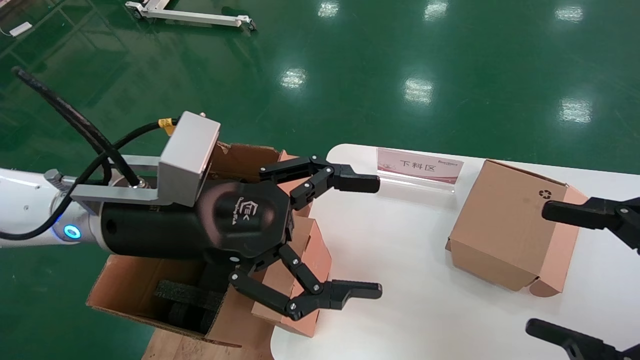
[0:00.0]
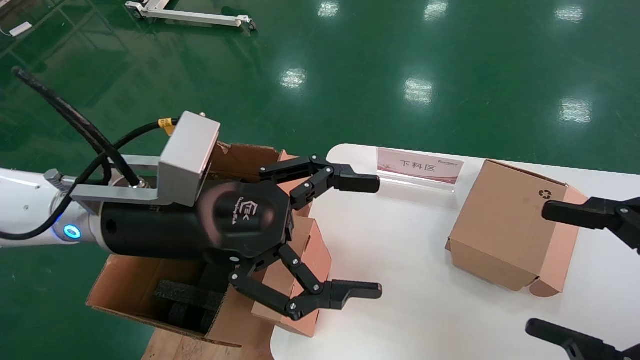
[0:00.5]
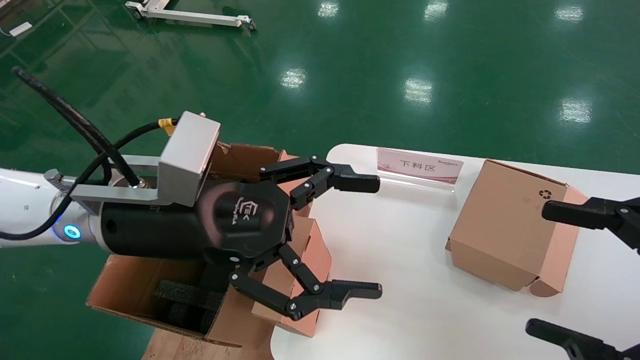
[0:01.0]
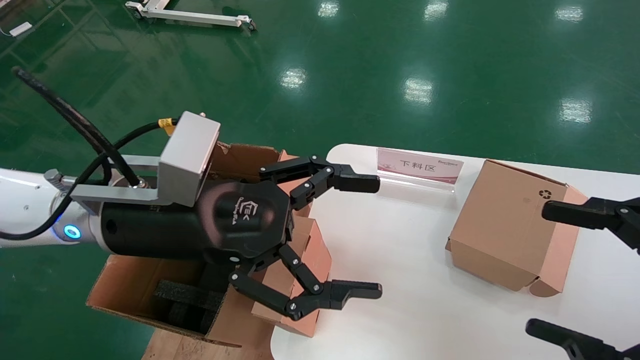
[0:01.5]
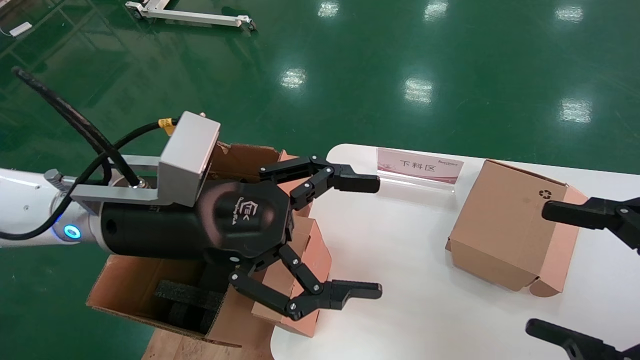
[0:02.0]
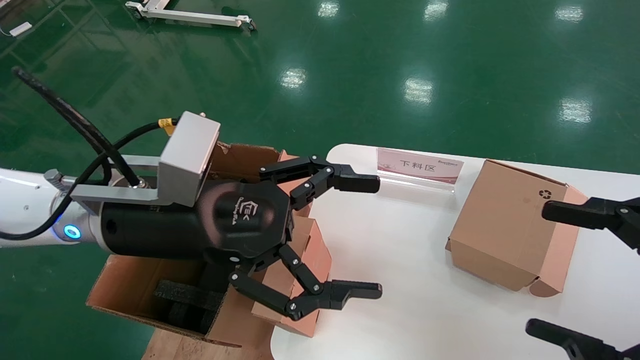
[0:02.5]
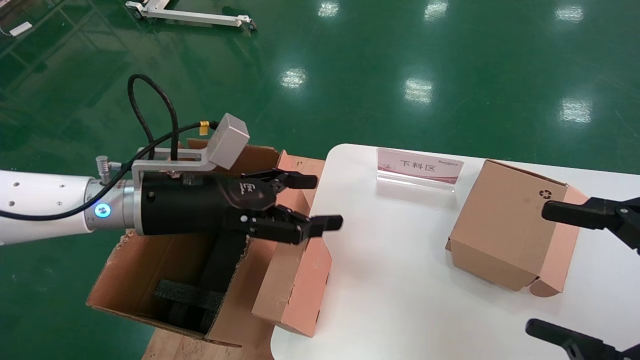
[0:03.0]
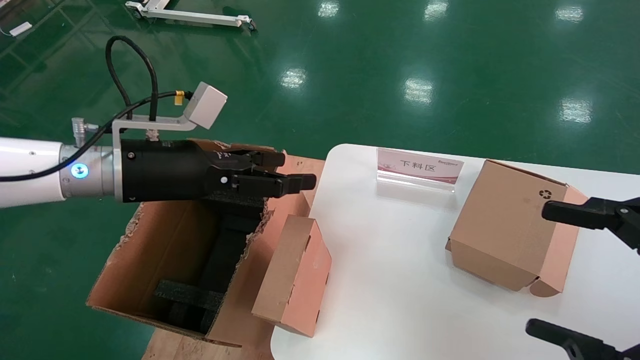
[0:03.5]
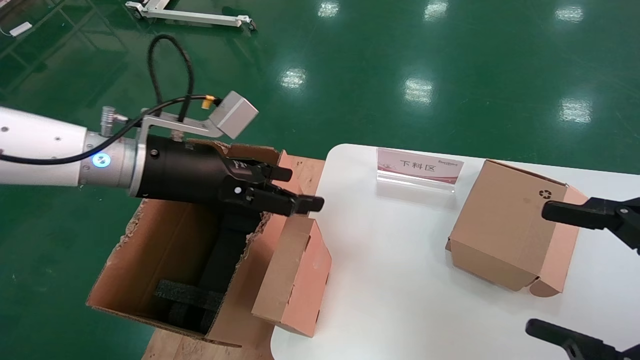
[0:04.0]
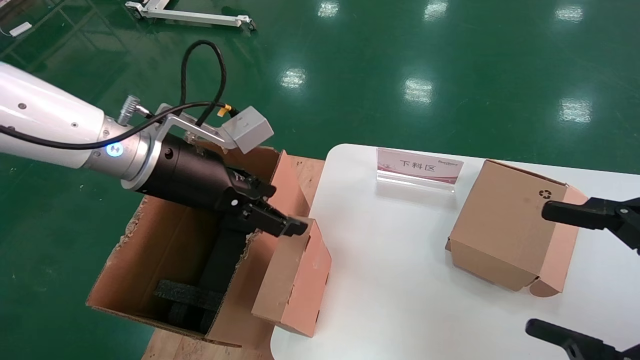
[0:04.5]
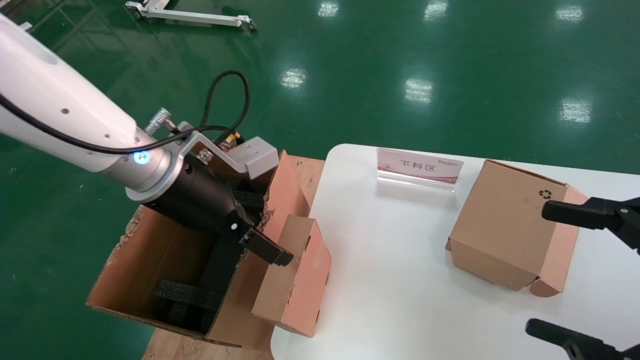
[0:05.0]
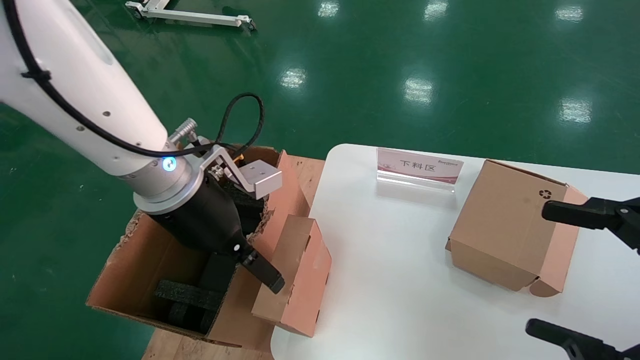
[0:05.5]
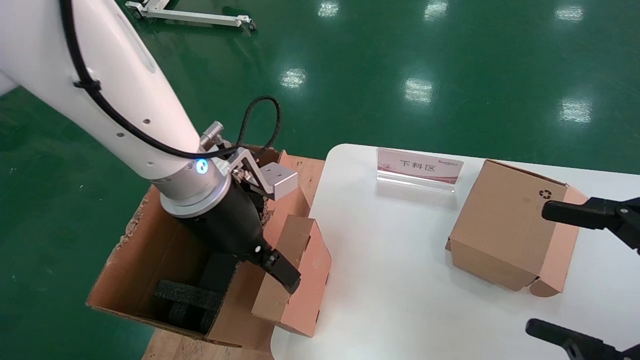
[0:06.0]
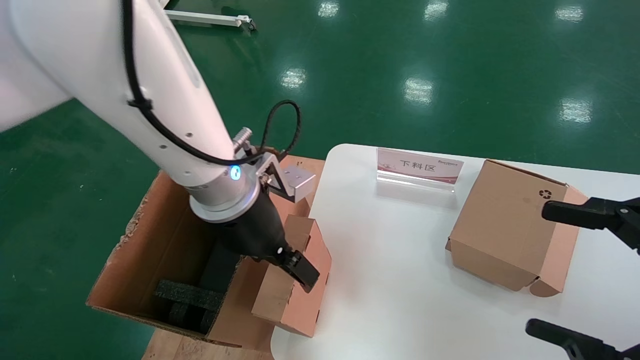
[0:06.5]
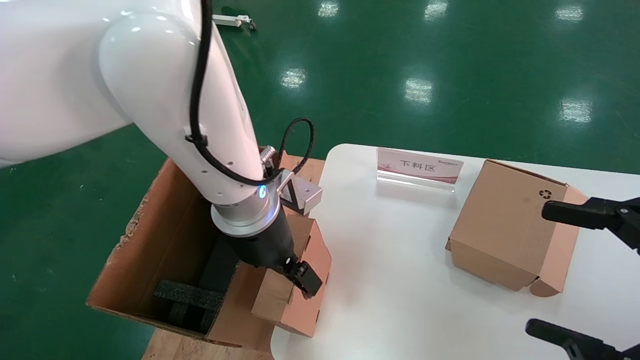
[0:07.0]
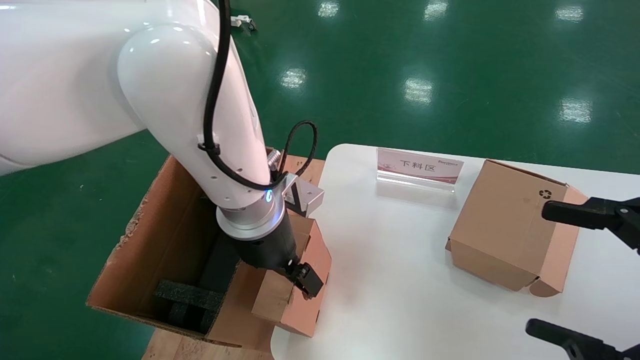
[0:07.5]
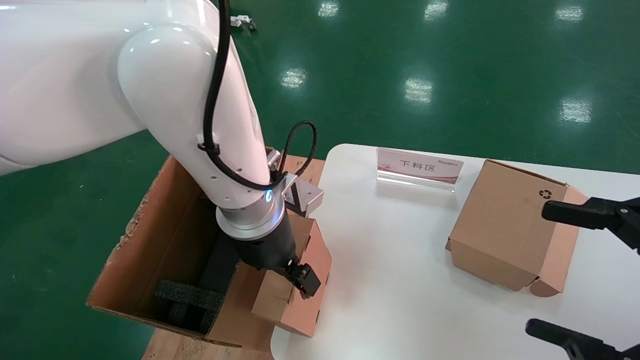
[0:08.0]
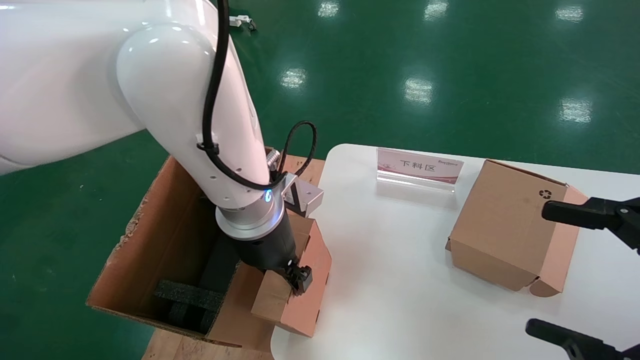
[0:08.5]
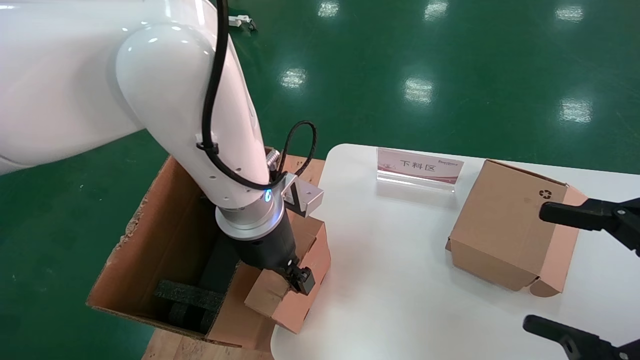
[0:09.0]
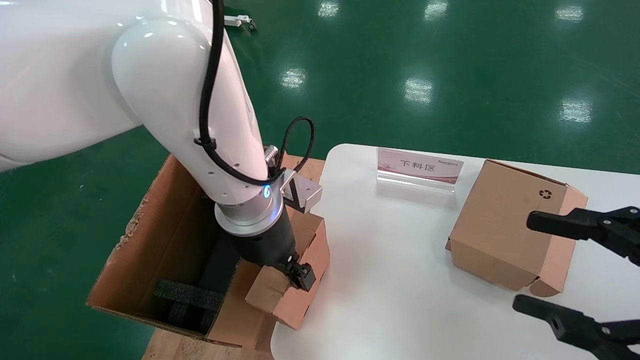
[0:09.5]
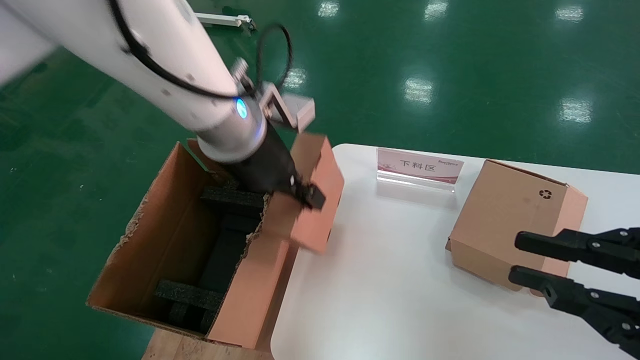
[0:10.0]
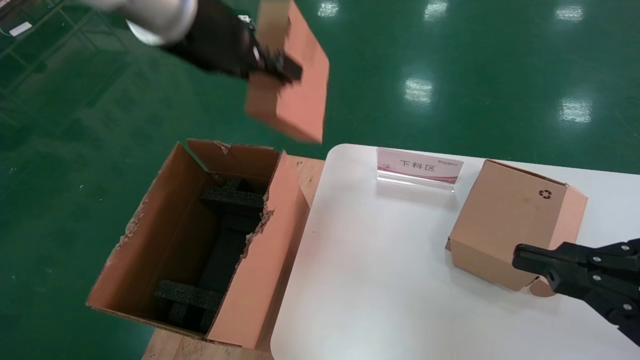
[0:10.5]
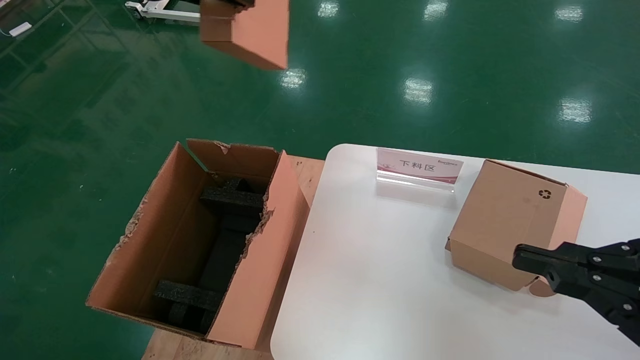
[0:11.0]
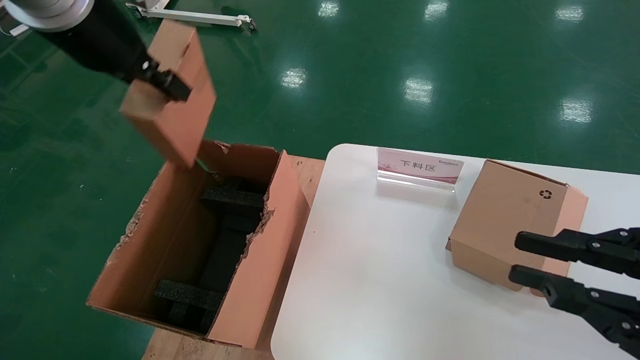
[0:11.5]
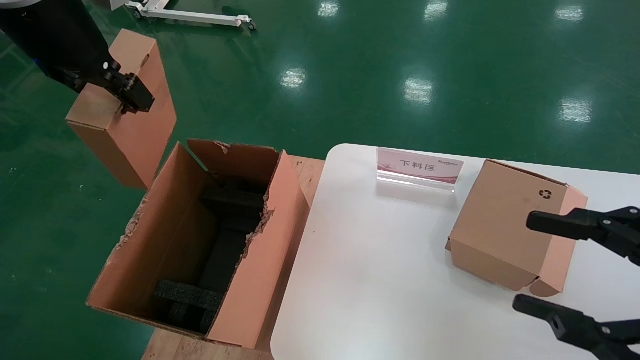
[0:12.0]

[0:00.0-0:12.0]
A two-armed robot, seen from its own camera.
Task of the whole recording: put the box on the table into the big box.
Step, 0:00.0 to 0:08.5: Grasp the paper box.
0:00.0 to 0:02.0: Both grippers stay put.
0:02.0 to 0:04.0: The left gripper heads forward, covering about 5 cm.
0:04.0 to 0:06.0: The left gripper heads to the right, covering roughly 10 cm.
0:06.0 to 0:08.0: The left gripper shifts by approximately 5 cm.
0:08.0 to 0:10.0: The left gripper travels upward by roughly 10 cm, and closes up. Meanwhile the right gripper closes.
0:10.0 to 0:12.0: The right gripper closes, then reopens, while the left gripper moves to the left and upward, about 20 cm.

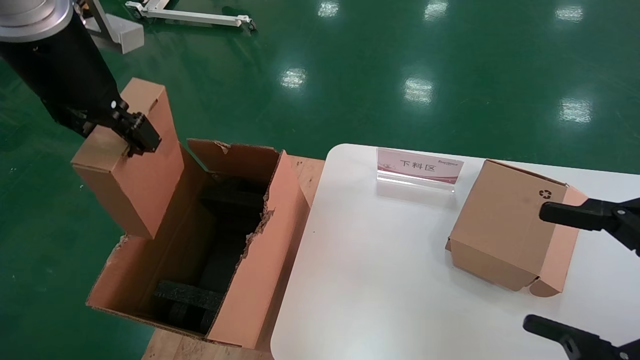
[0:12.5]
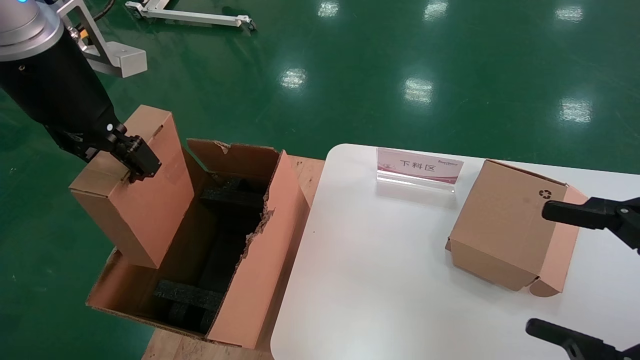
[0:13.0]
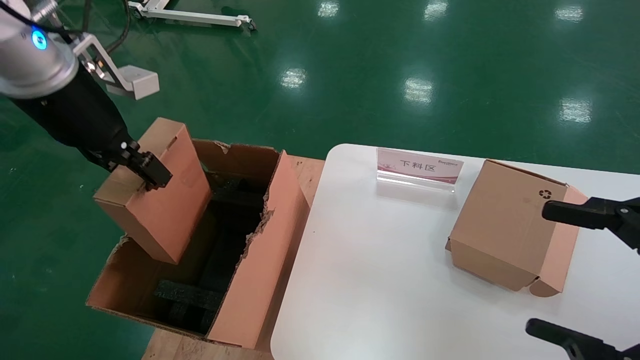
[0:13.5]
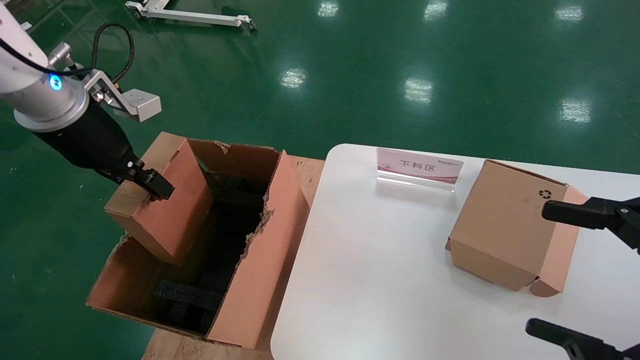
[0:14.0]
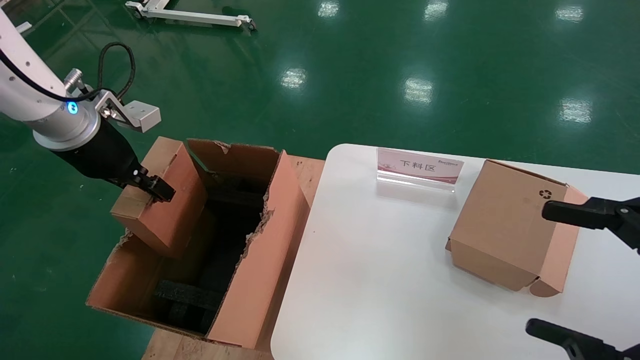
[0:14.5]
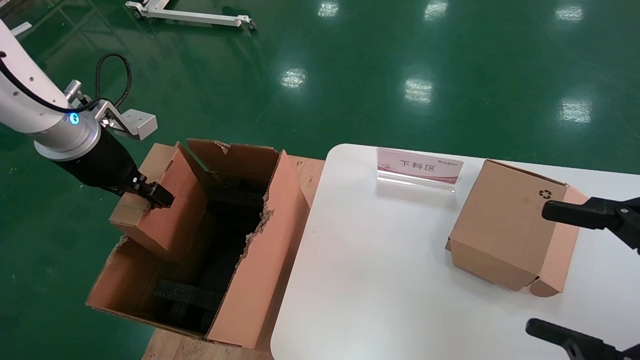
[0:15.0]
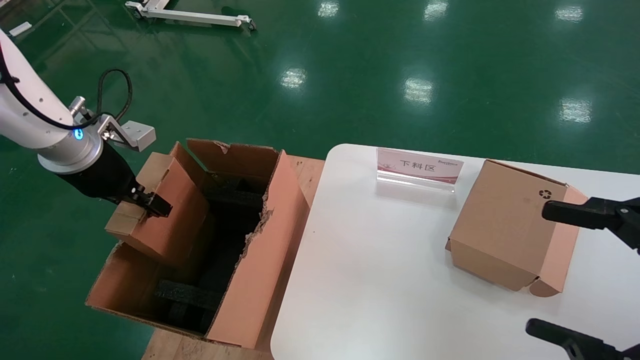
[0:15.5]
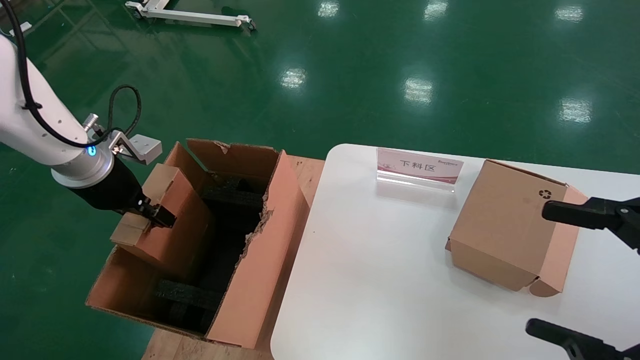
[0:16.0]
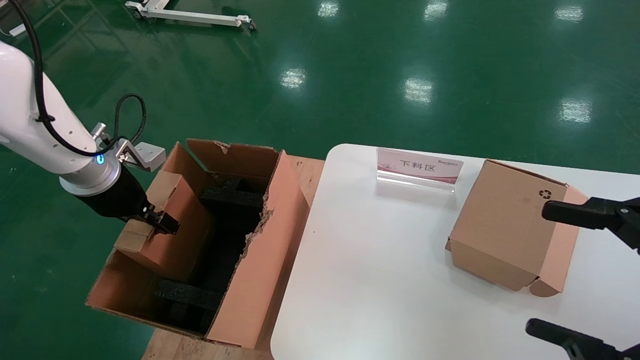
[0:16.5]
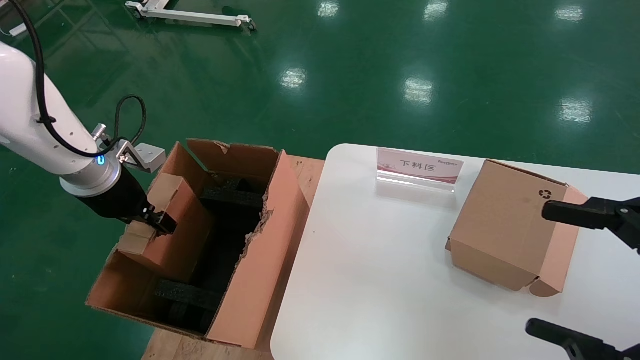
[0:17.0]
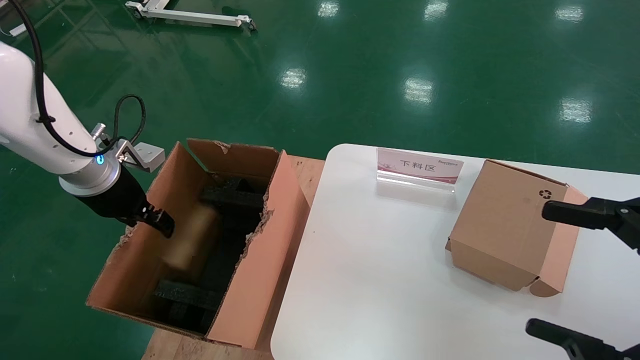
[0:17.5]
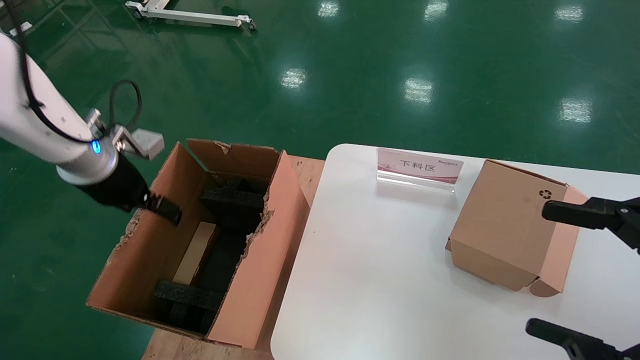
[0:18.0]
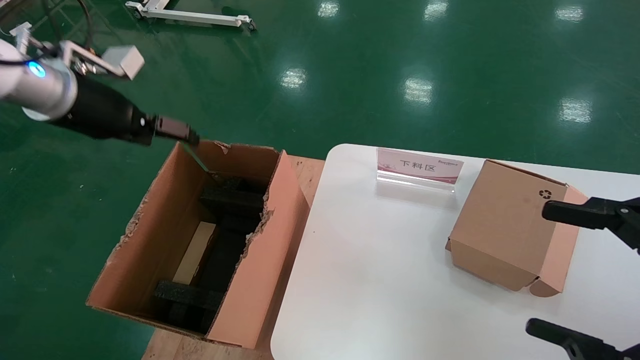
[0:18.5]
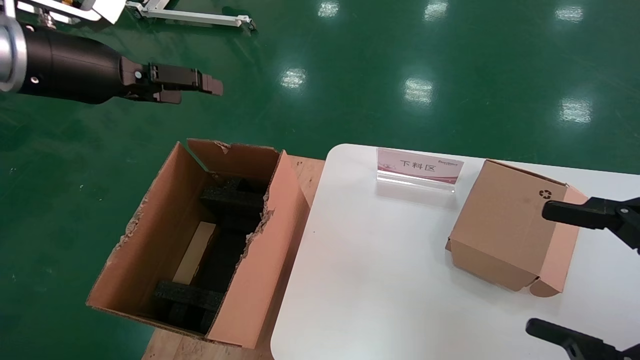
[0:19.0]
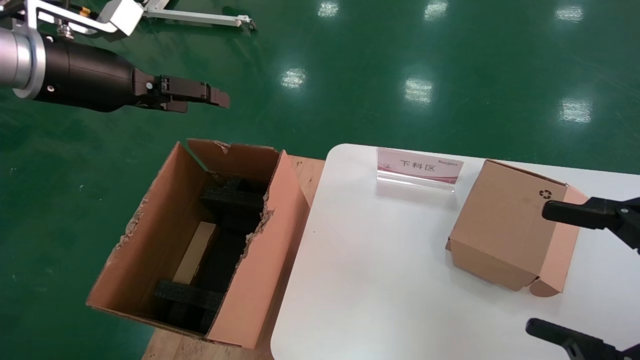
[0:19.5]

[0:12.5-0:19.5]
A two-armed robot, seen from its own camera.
Task of the whole recording: put the box on the table into the big box.
Step, 0:12.5 to 0:17.5: Place the paper box in the another big box.
0:12.5 to 0:14.5: The left gripper travels downward, to the left and forward by approximately 15 cm.
0:14.5 to 0:16.0: The left gripper shifts approximately 5 cm downward.
0:16.0 to 0:17.5: The left gripper opens up.
0:17.5 to 0:19.5: The left gripper goes approximately 15 cm upward, and opens up.
